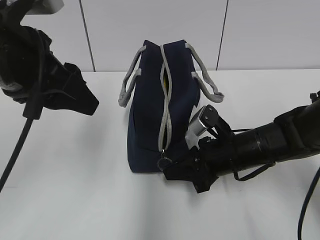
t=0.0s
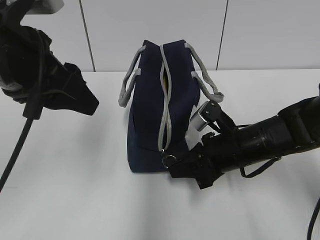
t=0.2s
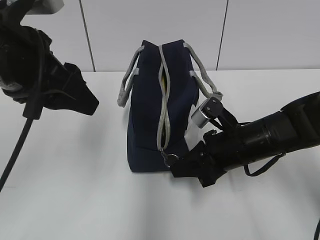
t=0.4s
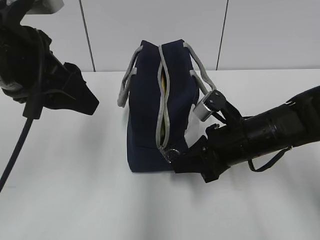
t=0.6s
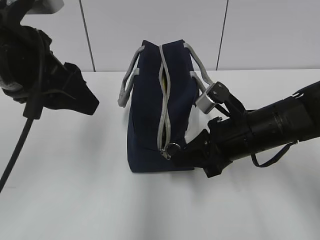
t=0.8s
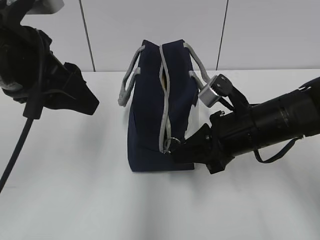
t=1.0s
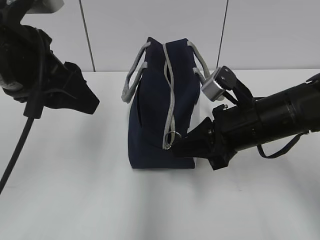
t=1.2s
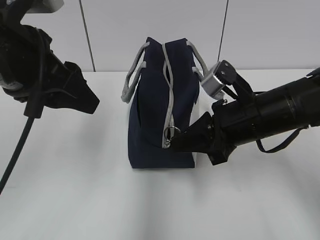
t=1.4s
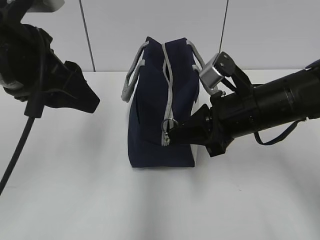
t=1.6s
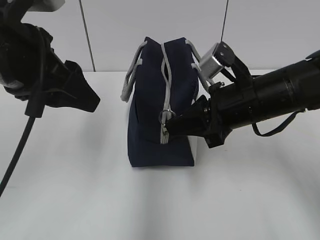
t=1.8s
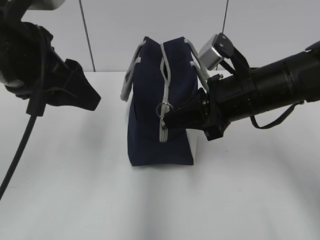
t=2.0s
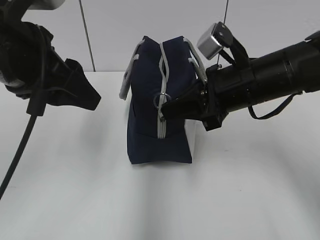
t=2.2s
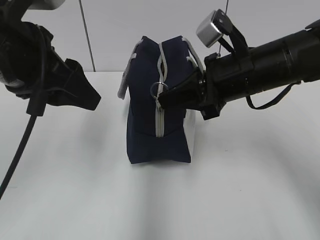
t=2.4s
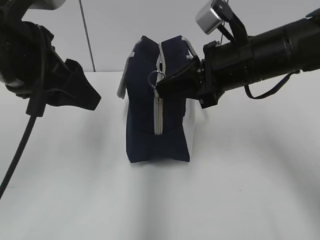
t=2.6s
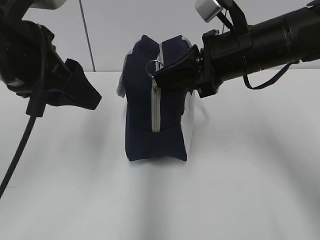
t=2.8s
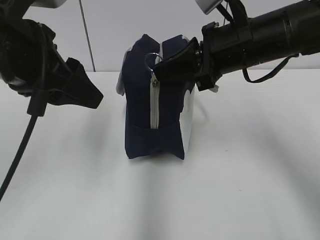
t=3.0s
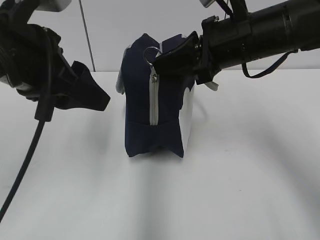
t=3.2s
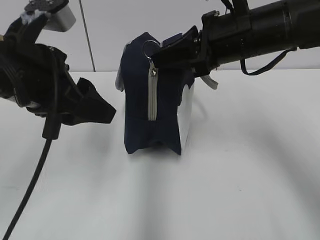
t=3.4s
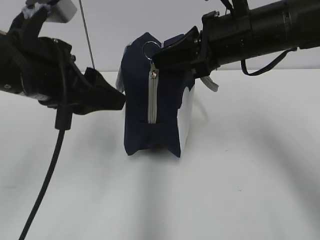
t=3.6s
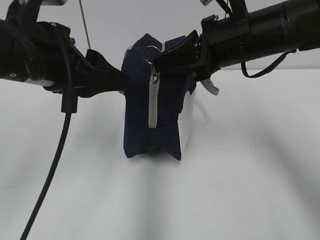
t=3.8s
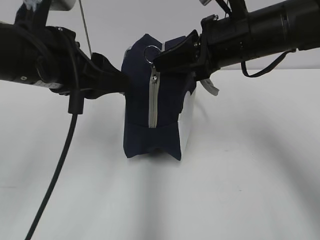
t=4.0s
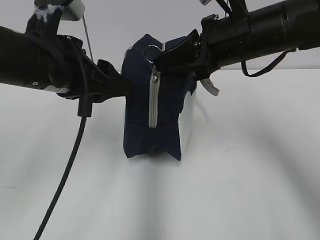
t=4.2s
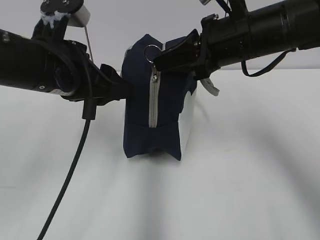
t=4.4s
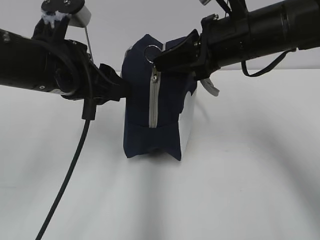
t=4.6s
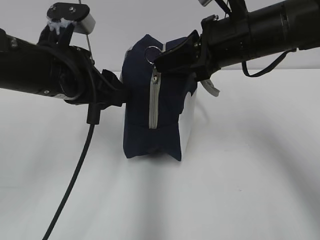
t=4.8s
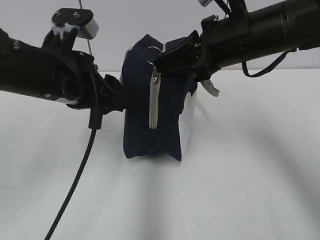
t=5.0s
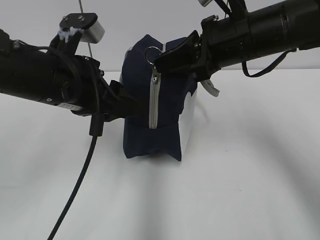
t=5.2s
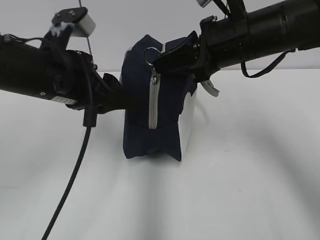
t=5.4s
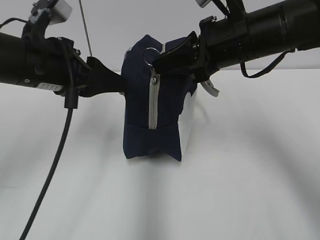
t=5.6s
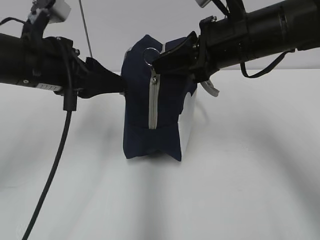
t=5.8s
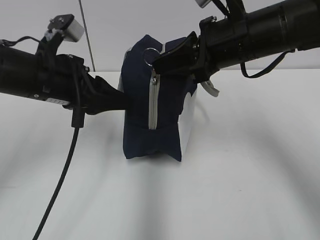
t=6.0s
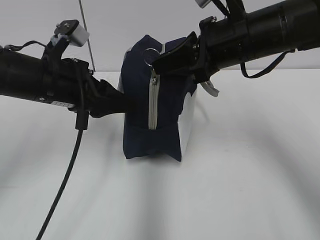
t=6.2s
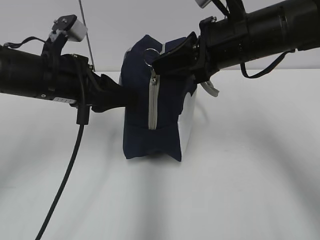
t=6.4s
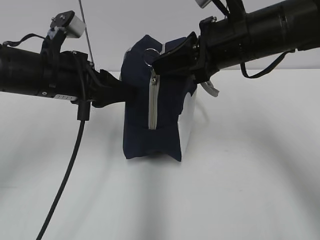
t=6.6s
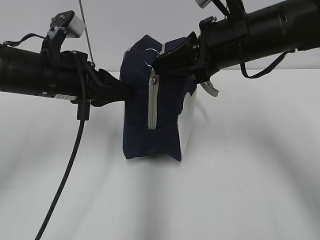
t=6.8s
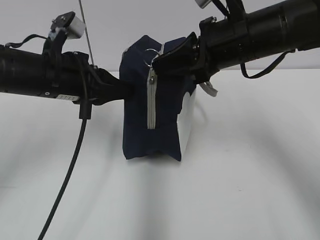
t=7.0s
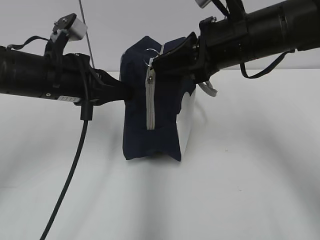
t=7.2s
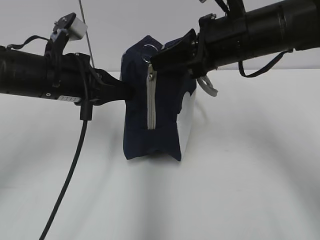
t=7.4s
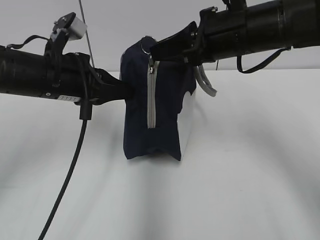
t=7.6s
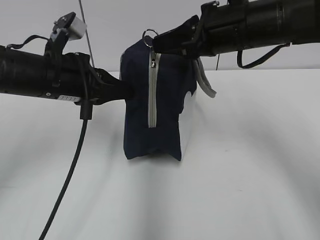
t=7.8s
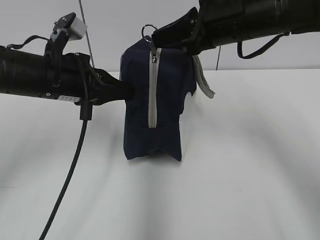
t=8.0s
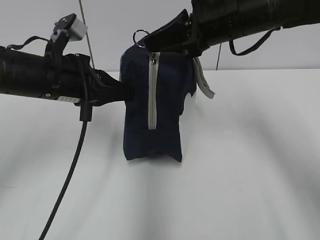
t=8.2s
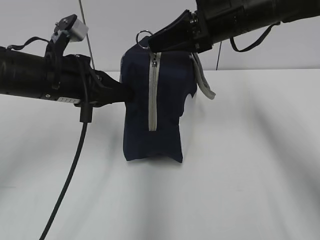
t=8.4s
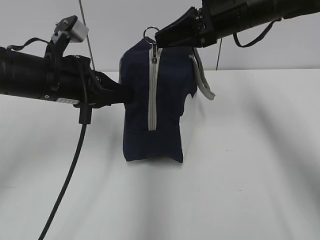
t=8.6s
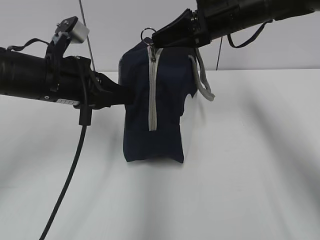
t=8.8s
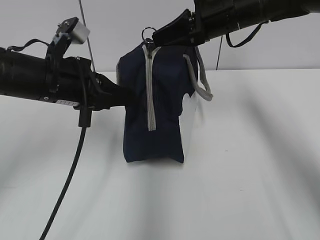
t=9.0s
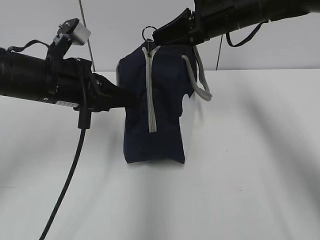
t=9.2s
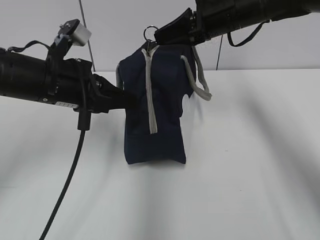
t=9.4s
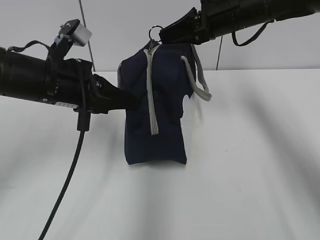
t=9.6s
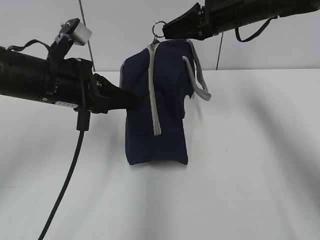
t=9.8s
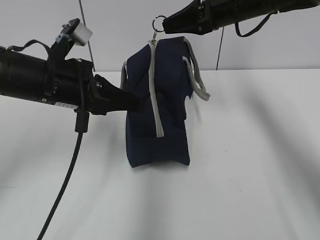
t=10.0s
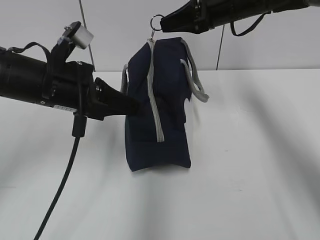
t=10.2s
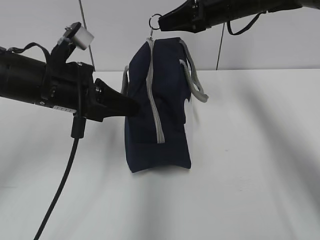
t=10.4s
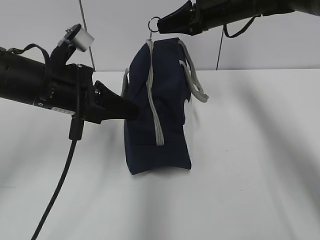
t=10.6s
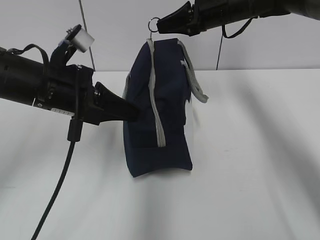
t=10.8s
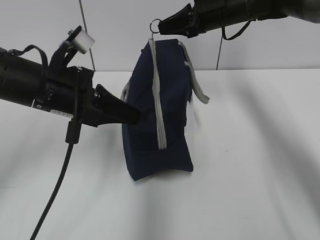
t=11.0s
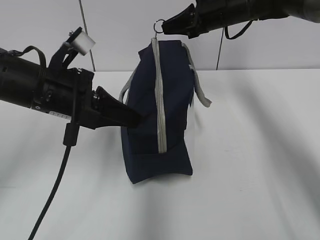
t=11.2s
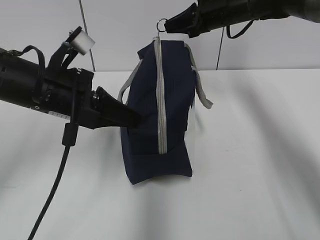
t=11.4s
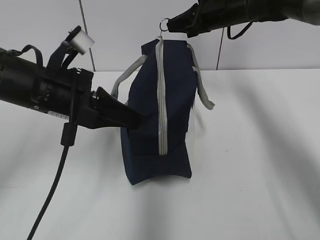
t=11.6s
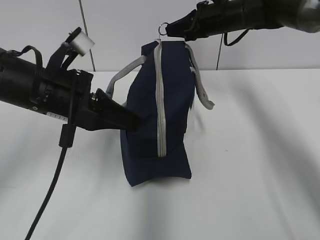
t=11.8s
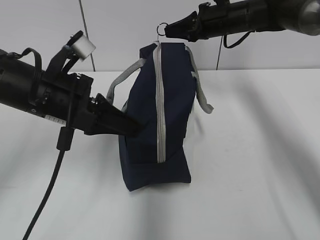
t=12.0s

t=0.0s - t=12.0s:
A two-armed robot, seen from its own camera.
t=0.0s - t=1.6s: The right gripper travels upward by roughly 10 cm.
t=1.6s - t=3.0s: The right gripper goes about 10 cm upward.
t=3.0s - t=4.4s: The left gripper ends up roughly 5 cm from where it was.
t=4.4s - t=6.0s: The grippers stay close to where they were, moving slightly.
t=6.0s - t=7.6s: The left gripper closes its fingers.
t=7.6s - t=9.0s: The right gripper shifts approximately 10 cm forward.
t=9.0s - t=10.4s: The grippers move only a little.
t=10.4s - t=12.0s: The right gripper moves some 5 cm.

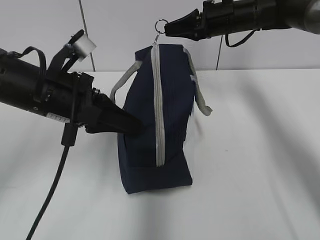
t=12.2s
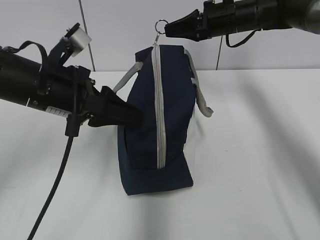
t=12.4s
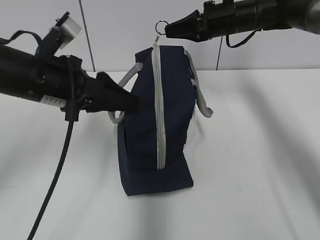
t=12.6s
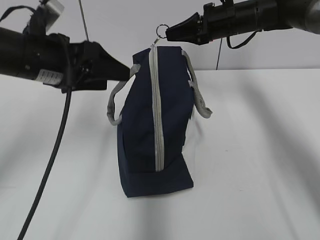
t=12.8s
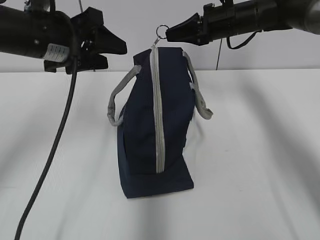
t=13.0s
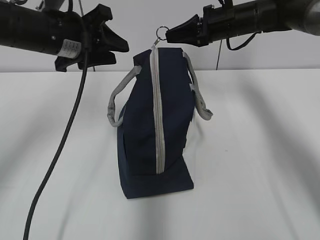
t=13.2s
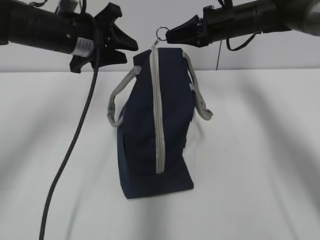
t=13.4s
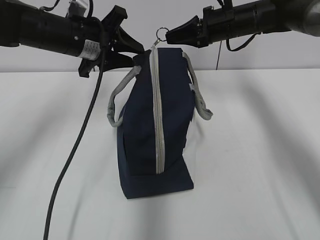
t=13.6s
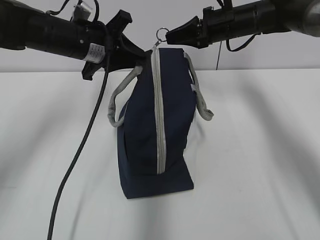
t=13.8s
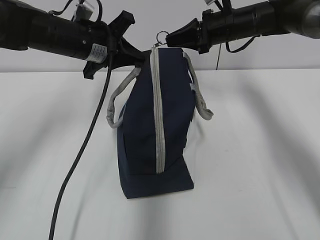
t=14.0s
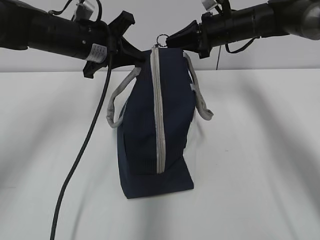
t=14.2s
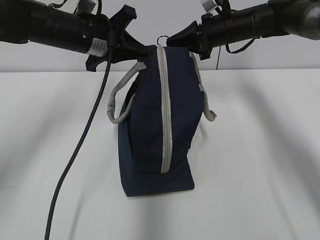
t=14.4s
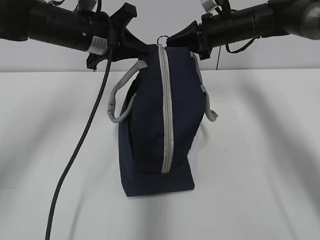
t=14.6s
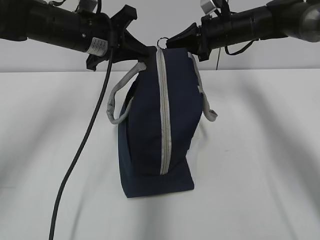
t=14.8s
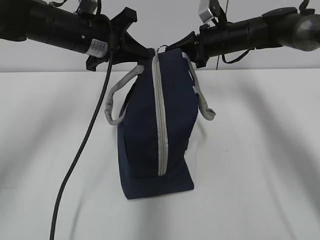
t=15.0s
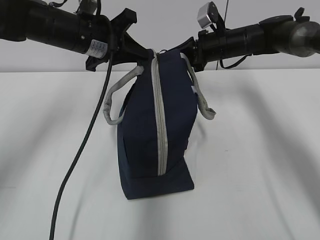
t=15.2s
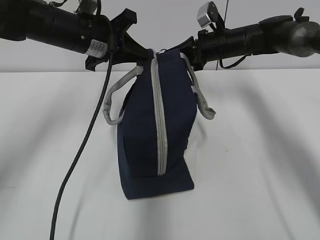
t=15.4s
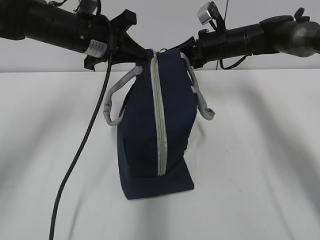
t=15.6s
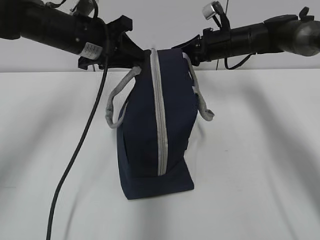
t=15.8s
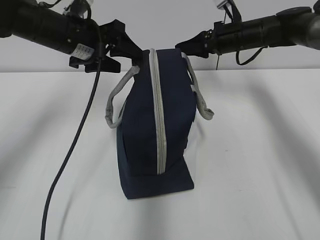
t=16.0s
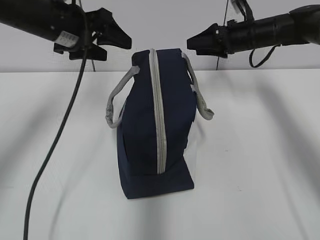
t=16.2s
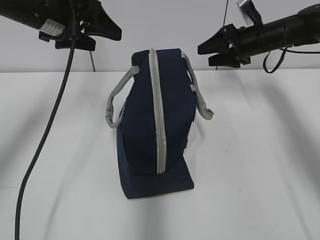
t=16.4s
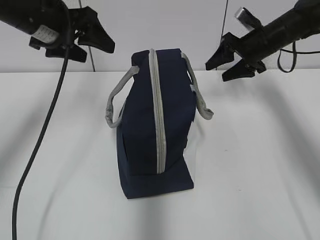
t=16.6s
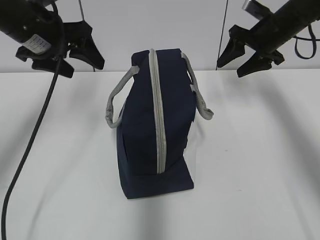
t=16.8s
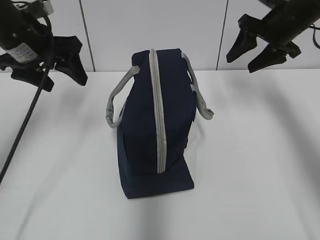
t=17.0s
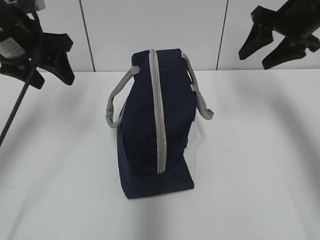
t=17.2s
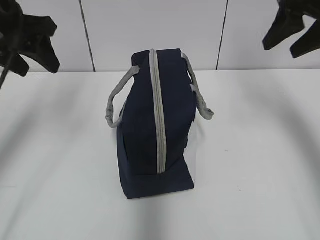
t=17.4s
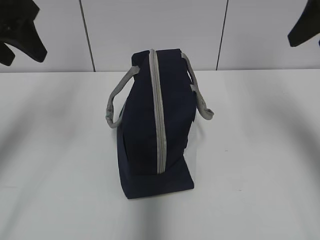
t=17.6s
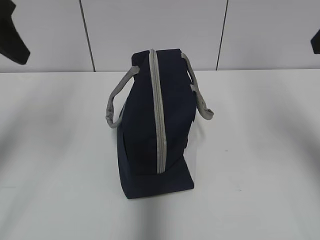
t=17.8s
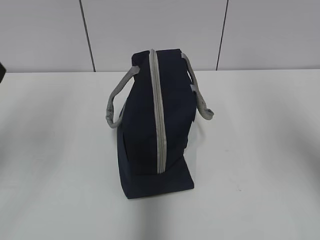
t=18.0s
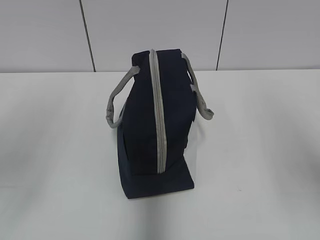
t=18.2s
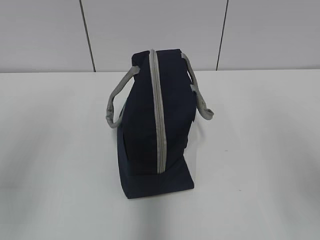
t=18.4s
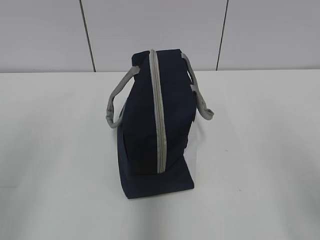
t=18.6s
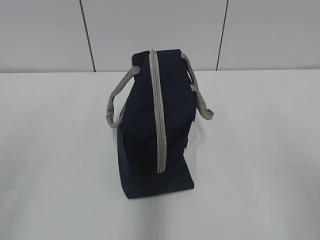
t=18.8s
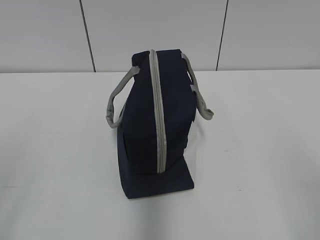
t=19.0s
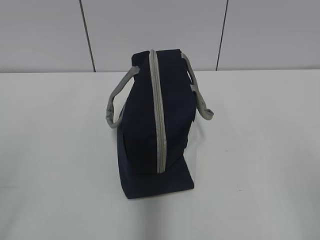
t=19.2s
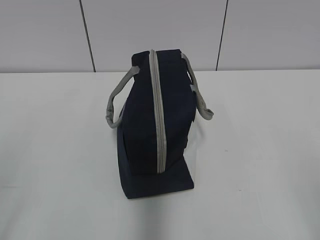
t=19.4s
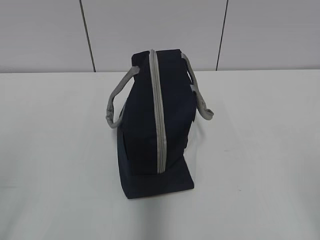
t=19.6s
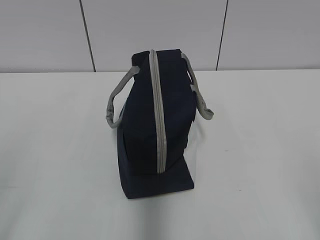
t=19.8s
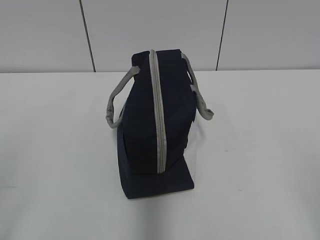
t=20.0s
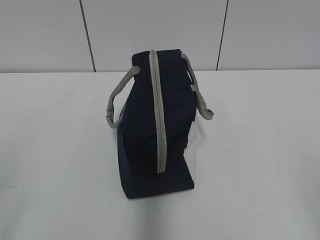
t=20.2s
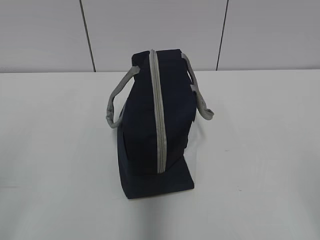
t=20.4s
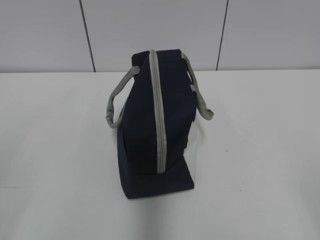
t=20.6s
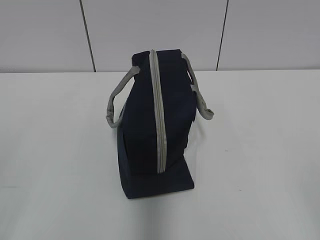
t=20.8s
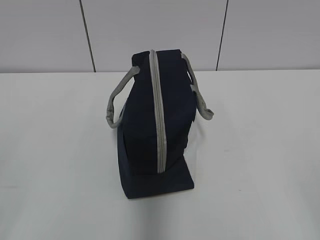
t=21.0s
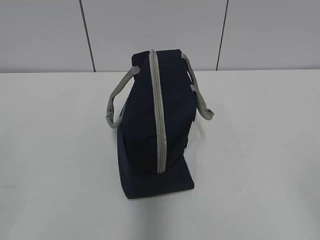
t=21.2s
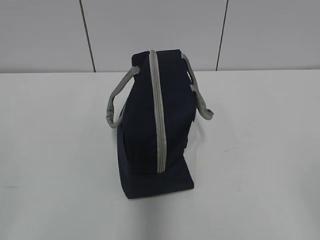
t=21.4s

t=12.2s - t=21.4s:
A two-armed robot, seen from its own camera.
Step, t=12.4s - t=15.6s: Pull the zipper with your right hand.
t=12.2s - t=13.8s: The left gripper shifts approximately 15 cm forward, and opens and closes again.
t=13.8s - t=15.2s: The right gripper shifts by roughly 5 cm, while the left gripper closes.
t=15.2s - t=16.8s: The left gripper goes about 5 cm to the left, and opens up. The right gripper shifts approximately 10 cm to the right, and opens its fingers.
t=16.8s - t=18.4s: Both grippers move backward, roughly 30 cm.

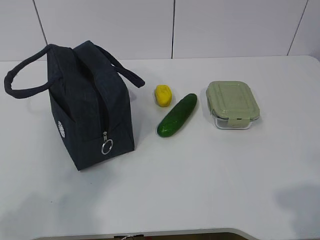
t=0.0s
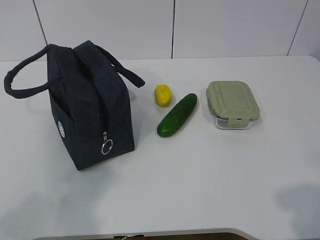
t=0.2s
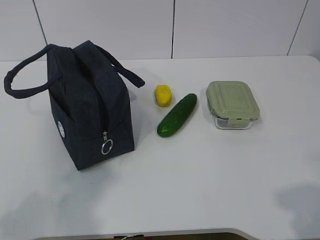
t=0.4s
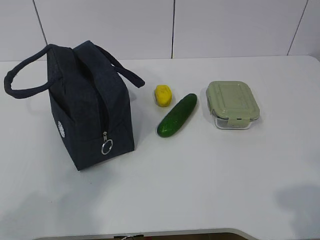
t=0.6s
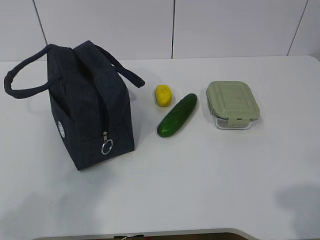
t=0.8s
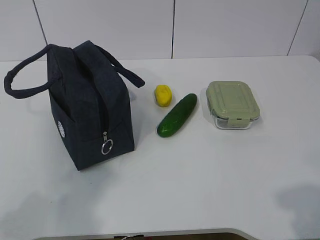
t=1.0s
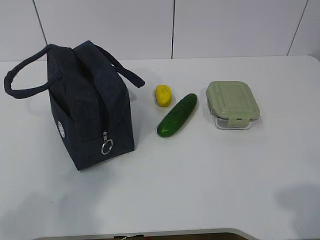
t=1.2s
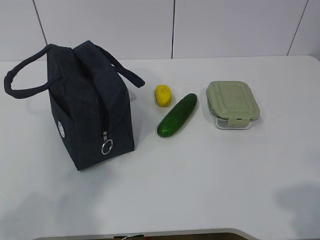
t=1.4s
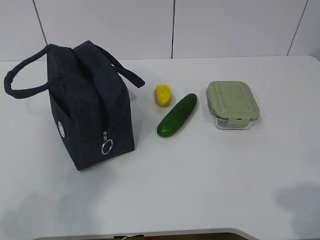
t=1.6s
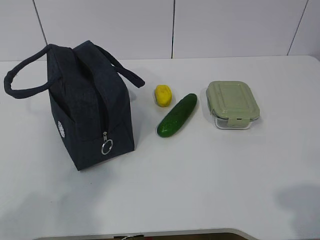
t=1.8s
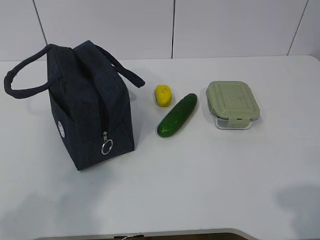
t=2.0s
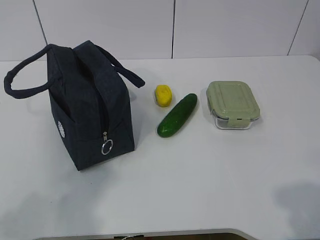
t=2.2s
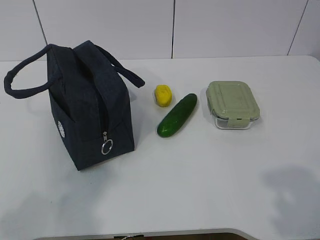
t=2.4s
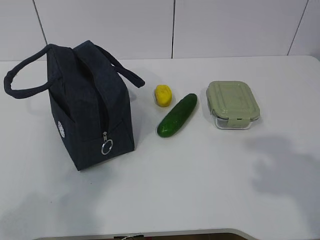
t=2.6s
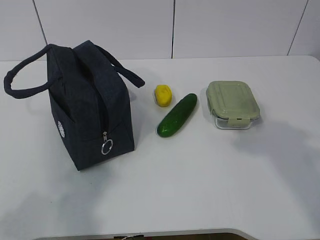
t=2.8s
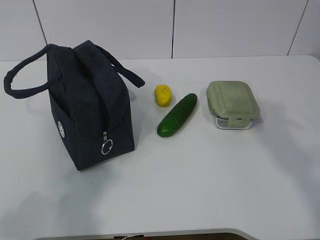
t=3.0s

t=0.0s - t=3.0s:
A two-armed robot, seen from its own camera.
t=1.6s - t=3.0s: The right gripper is displaced forward and upward by some 20 cm.
